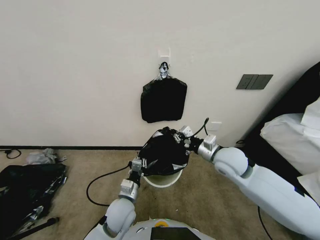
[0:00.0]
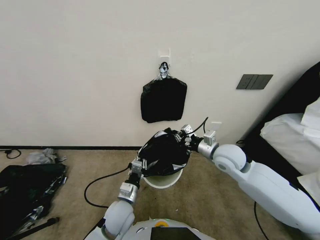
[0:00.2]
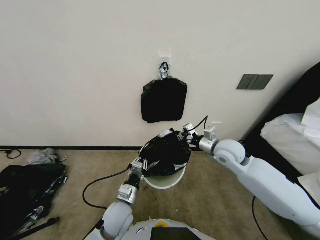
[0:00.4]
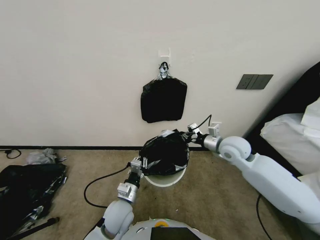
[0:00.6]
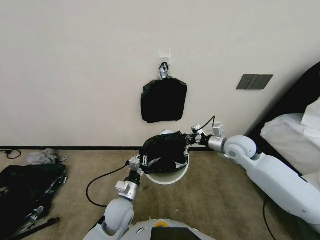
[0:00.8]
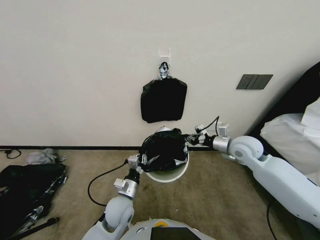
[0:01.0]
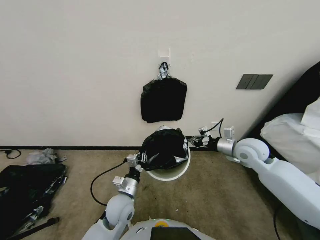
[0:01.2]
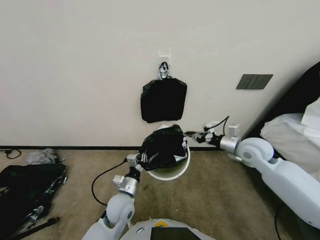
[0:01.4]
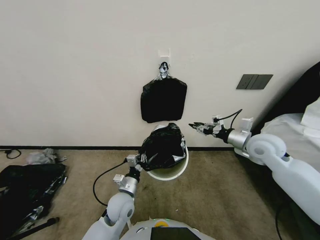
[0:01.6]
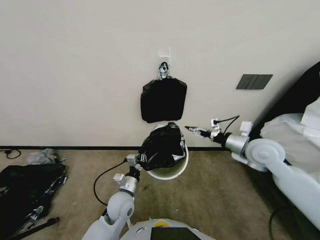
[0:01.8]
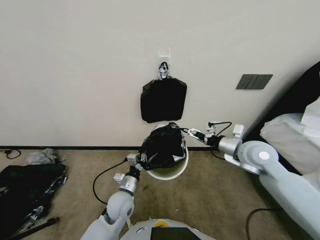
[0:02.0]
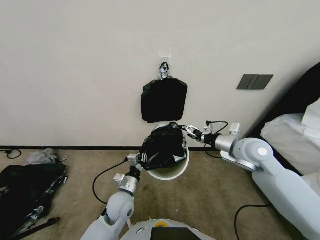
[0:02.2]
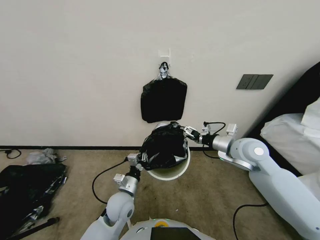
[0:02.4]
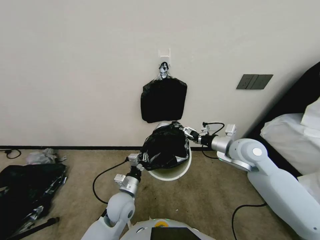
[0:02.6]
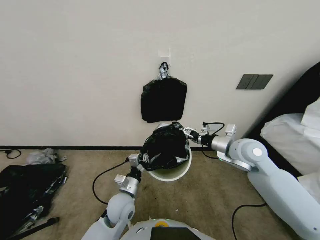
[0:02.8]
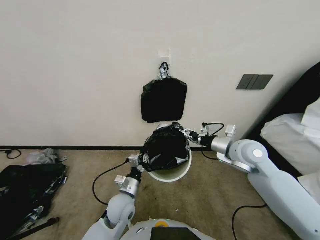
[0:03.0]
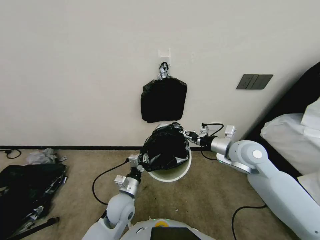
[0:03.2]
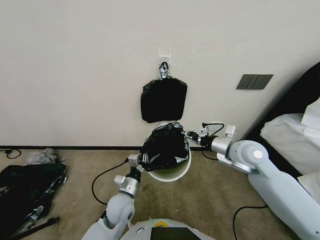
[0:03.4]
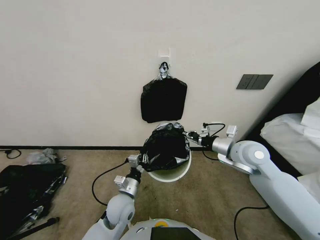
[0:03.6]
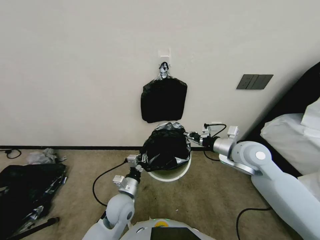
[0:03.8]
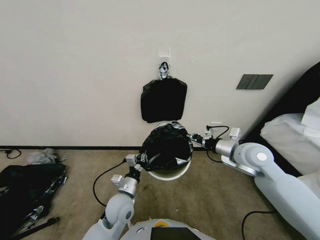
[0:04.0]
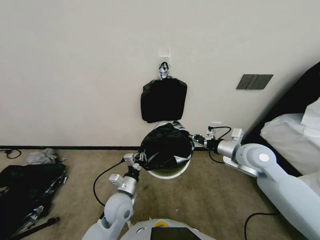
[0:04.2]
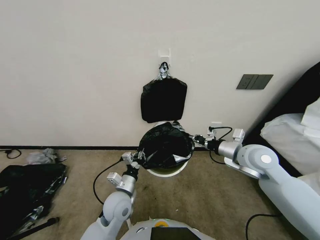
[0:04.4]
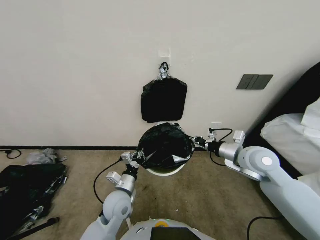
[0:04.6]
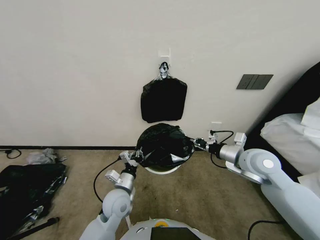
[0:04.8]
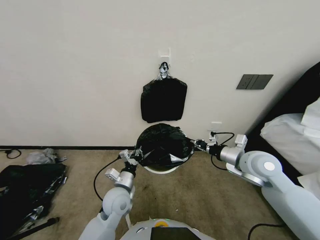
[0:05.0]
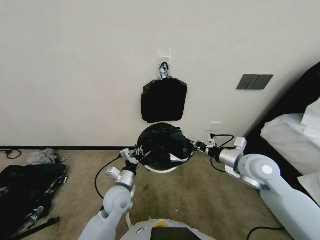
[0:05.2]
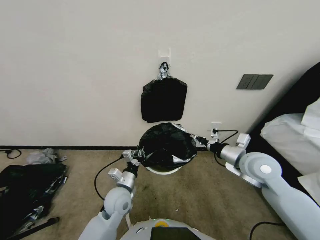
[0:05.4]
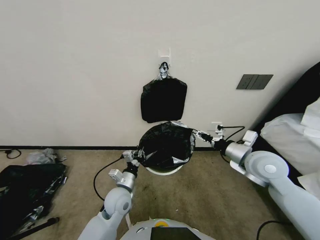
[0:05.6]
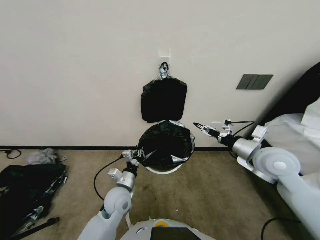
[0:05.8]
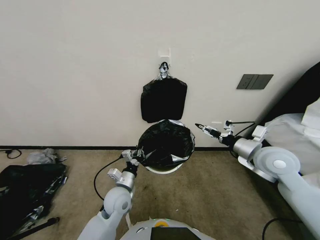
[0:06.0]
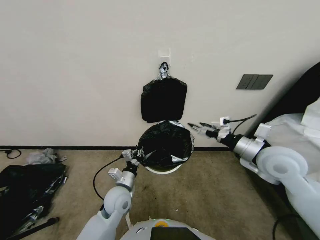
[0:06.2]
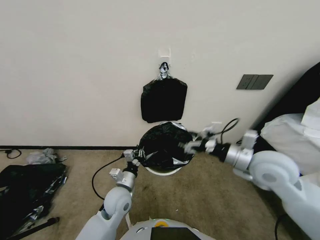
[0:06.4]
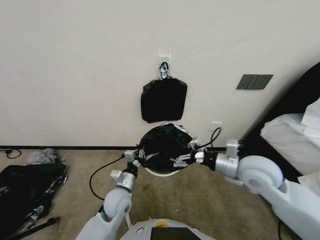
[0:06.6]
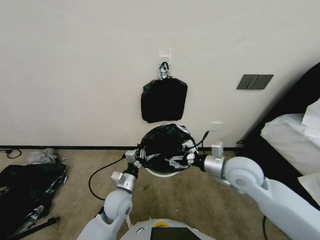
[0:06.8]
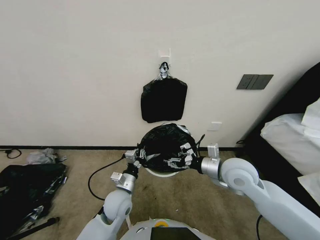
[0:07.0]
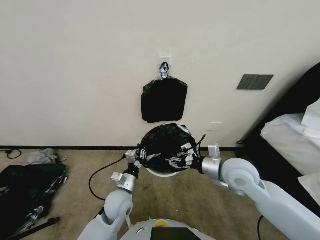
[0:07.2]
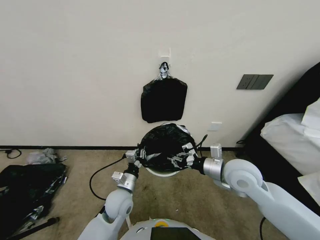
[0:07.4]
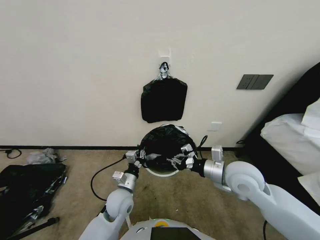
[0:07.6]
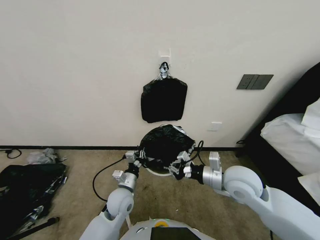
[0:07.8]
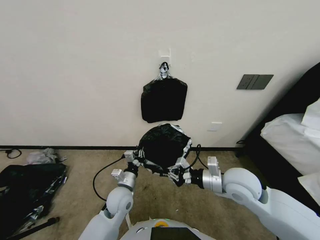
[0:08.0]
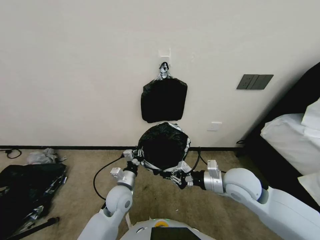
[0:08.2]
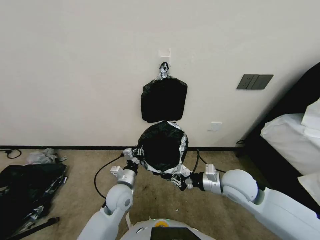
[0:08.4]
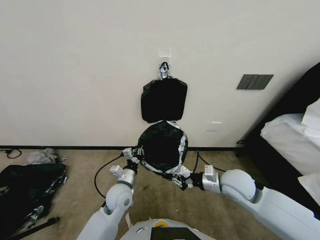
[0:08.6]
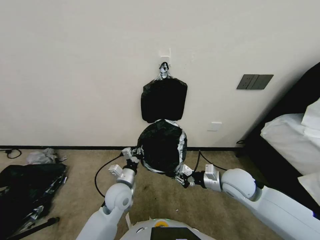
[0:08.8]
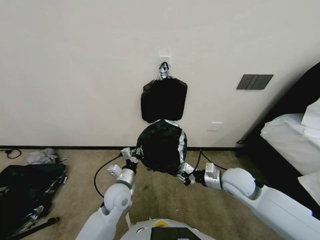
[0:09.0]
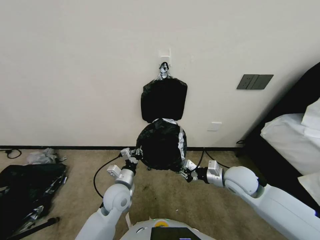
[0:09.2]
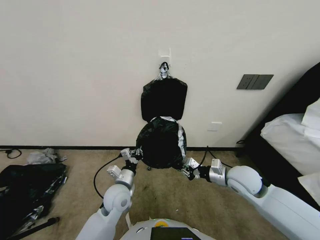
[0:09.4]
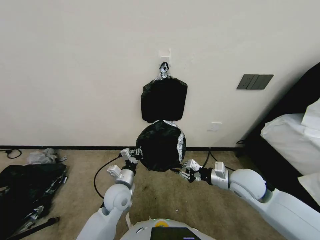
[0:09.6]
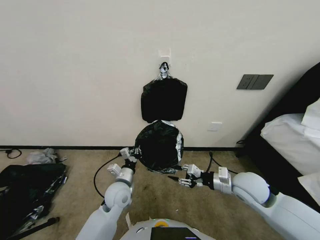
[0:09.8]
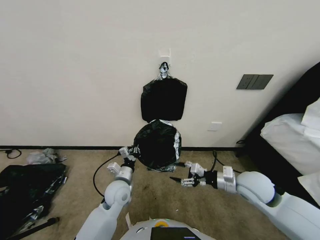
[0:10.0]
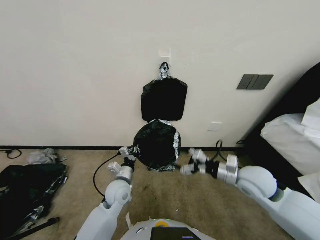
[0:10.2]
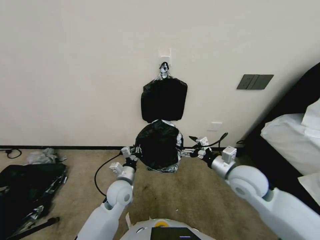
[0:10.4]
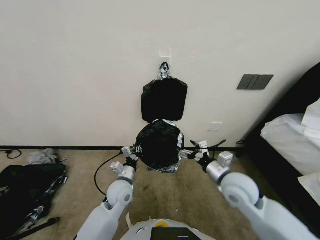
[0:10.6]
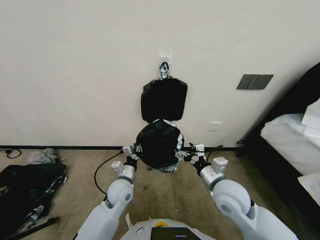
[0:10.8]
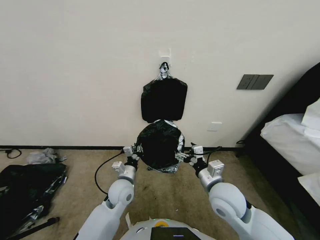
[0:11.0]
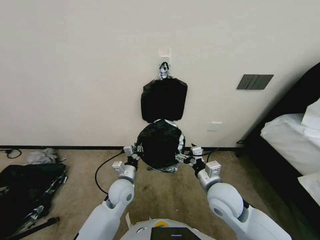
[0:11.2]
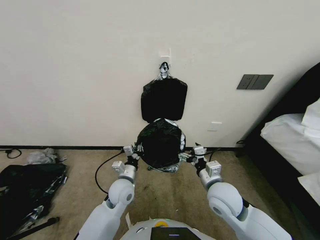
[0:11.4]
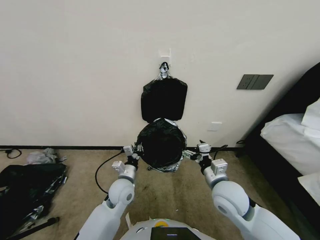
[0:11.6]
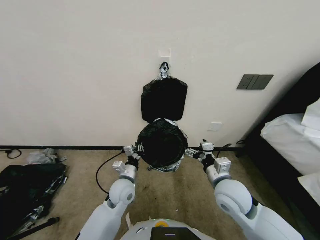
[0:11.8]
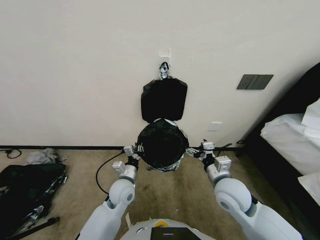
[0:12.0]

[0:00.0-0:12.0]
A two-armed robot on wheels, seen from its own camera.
Task of the whole recording: Place a trash bag onto the trash bin.
0:00.0 to 0:01.6: The right gripper heads to the right and forward, covering about 15 cm.
0:01.6 to 0:03.0: The right gripper shifts about 5 cm to the left, and opens, then closes again.
0:03.0 to 0:04.4: The right gripper closes.
0:04.4 to 0:06.0: The right gripper opens up.
0:06.0 to 0:07.6: The right gripper heads to the left, covering about 10 cm, and closes.
0:07.6 to 0:09.0: The right gripper moves downward, roughly 5 cm.
0:09.0 to 0:10.4: The right gripper goes roughly 5 cm upward, and opens.
0:10.4 to 0:12.0: The right gripper shifts roughly 5 cm to the left.

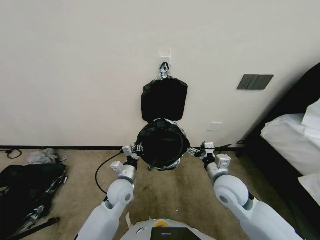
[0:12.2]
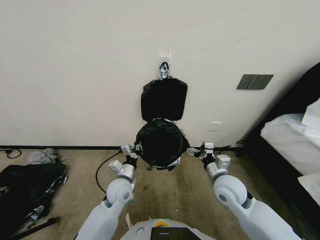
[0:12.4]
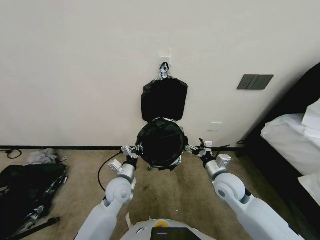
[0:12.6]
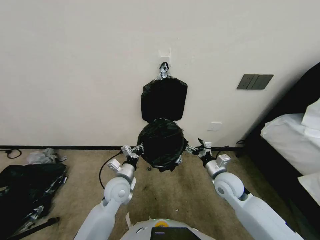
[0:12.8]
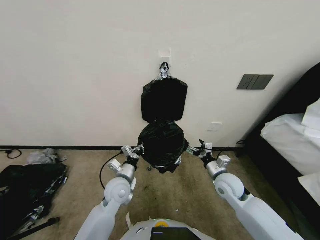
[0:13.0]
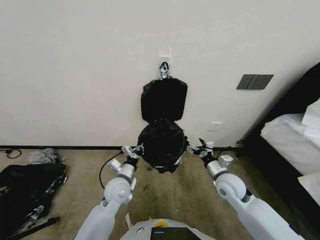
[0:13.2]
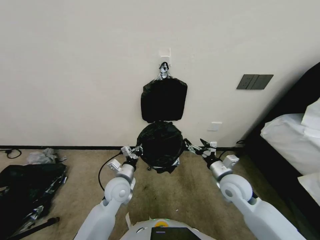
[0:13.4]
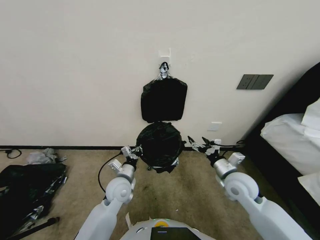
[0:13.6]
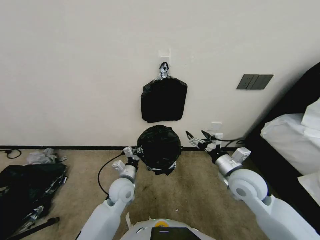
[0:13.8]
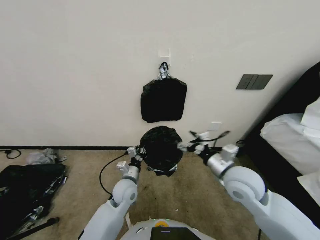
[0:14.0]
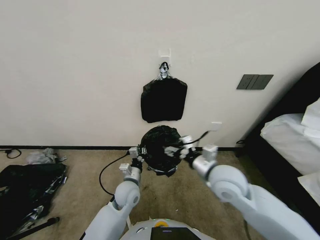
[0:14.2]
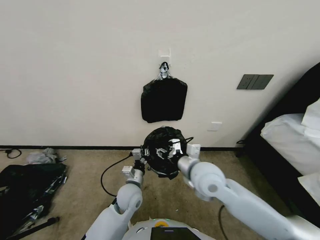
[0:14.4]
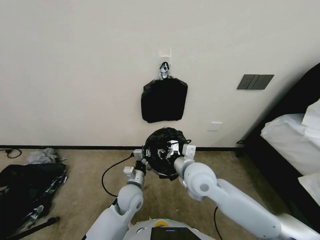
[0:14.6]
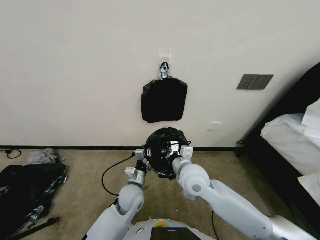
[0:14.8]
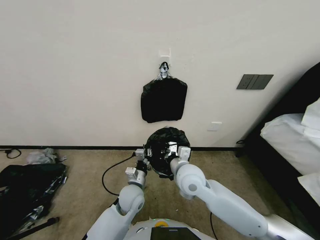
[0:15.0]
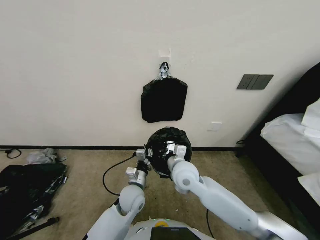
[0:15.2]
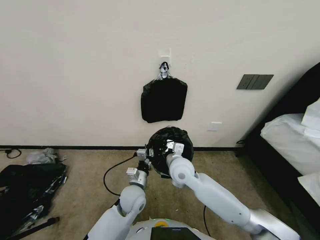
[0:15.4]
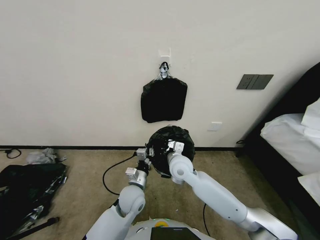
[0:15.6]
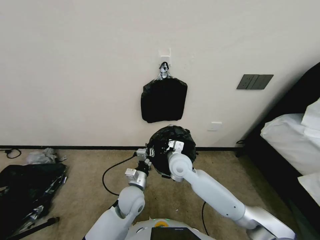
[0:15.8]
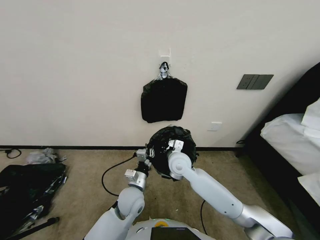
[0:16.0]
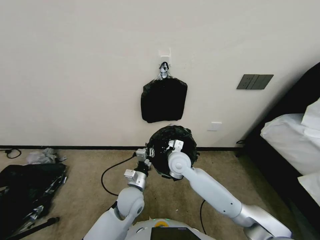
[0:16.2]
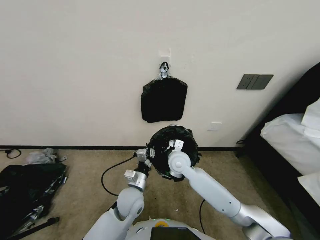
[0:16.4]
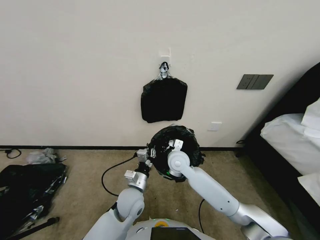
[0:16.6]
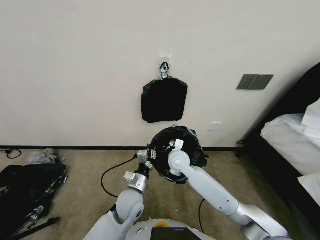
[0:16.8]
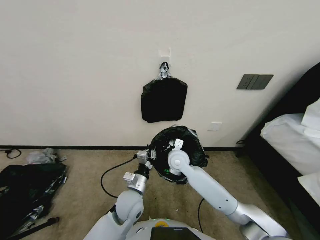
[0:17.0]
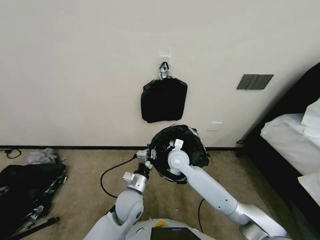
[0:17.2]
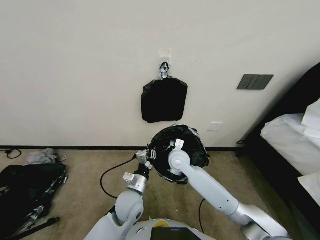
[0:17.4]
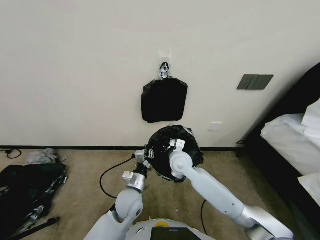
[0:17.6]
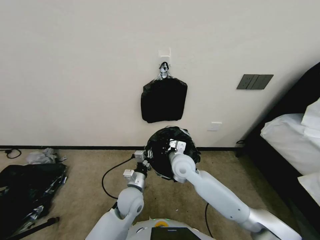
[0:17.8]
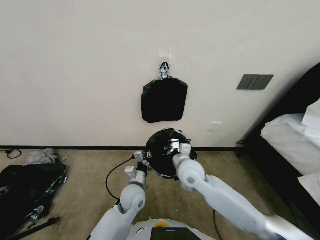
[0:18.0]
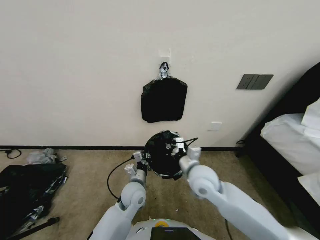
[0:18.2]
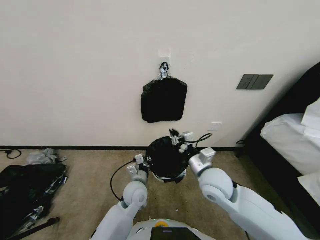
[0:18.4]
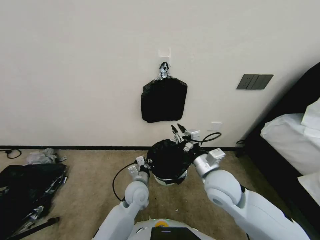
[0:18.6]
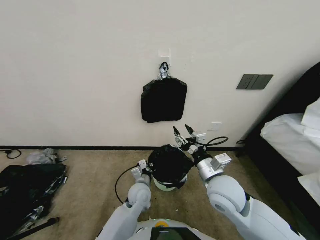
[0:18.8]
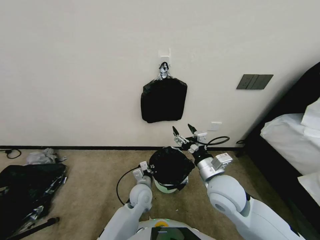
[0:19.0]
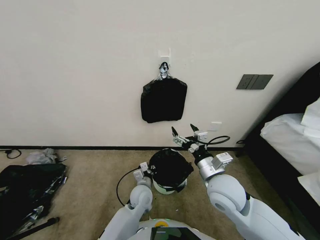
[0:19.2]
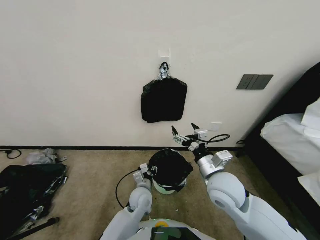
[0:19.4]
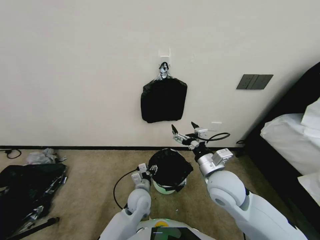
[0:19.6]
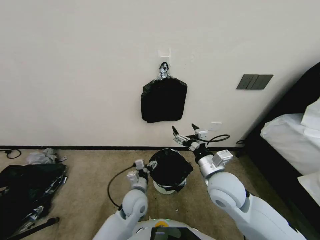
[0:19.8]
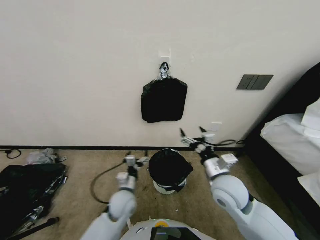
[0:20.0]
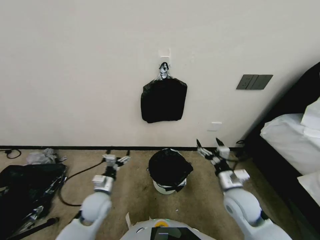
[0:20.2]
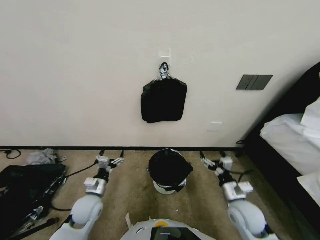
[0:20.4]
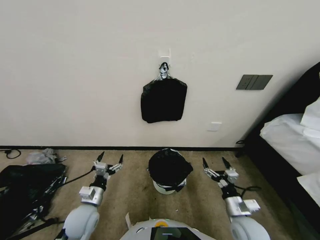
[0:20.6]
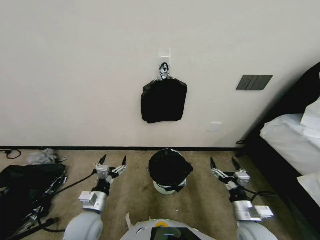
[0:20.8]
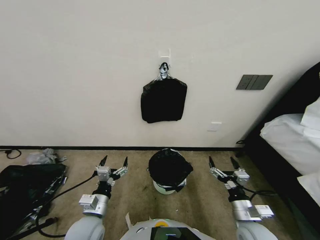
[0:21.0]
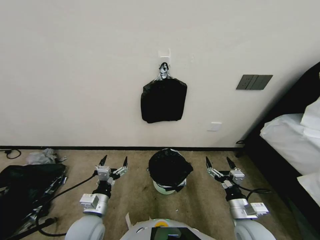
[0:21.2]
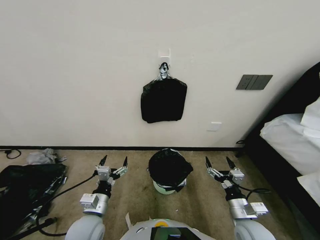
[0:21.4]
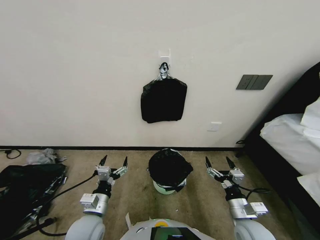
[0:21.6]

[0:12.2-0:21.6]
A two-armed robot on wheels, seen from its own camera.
Task of the whole recording: Place a trash bag onto the trash bin.
0:12.2 to 0:13.8: The right gripper shifts approximately 5 cm to the right.
0:13.8 to 0:15.4: The left gripper heads to the right, covering about 5 cm; the right gripper moves to the left, some 20 cm, and closes.
0:15.4 to 0:17.0: The right gripper shifts about 5 cm forward.
0:17.0 to 0:18.4: The right gripper travels backward, to the right and upward by some 15 cm.
0:18.4 to 0:20.0: The right gripper opens its fingers. The left gripper opens up.
0:20.0 to 0:21.6: The left gripper moves to the left, backward and upward, some 15 cm. The right gripper moves downward, backward and to the right, about 20 cm.
